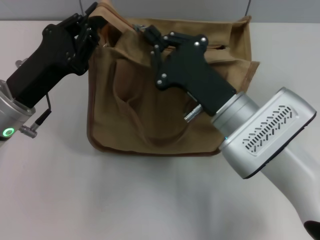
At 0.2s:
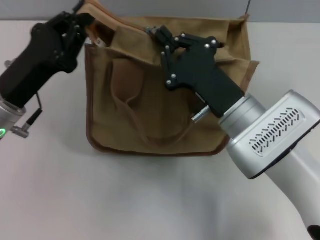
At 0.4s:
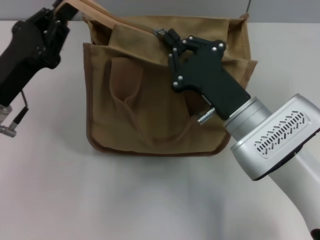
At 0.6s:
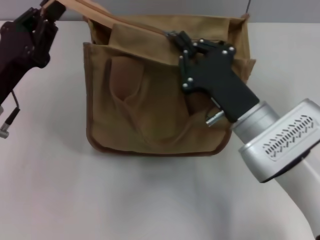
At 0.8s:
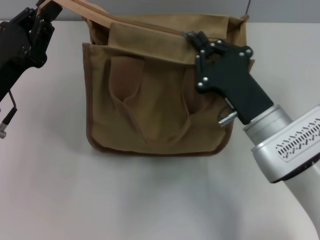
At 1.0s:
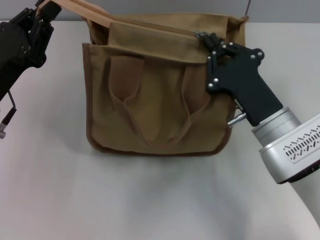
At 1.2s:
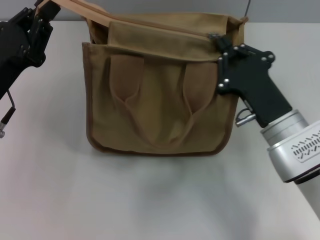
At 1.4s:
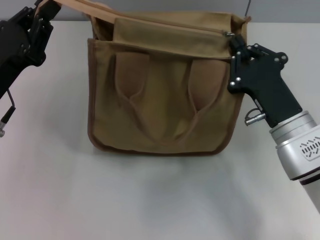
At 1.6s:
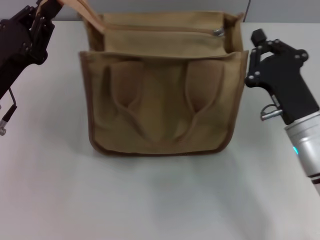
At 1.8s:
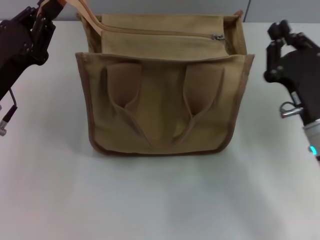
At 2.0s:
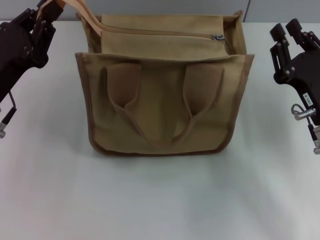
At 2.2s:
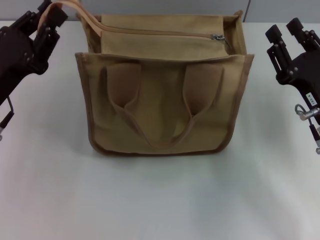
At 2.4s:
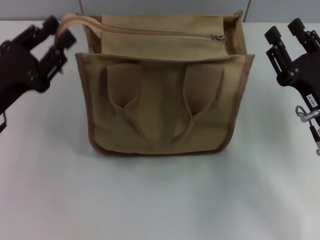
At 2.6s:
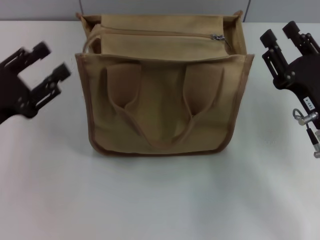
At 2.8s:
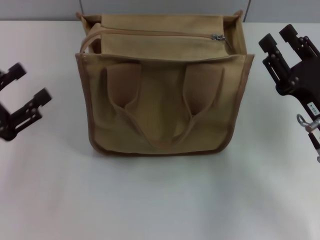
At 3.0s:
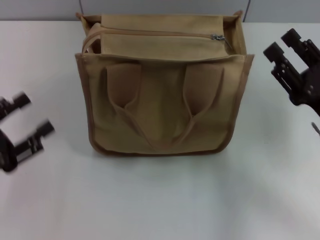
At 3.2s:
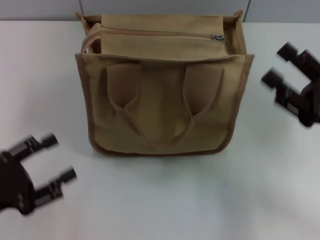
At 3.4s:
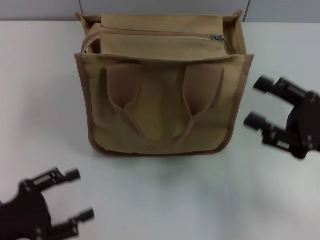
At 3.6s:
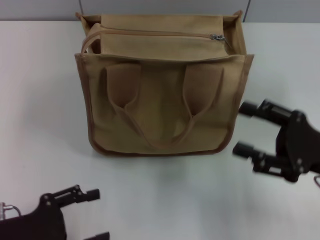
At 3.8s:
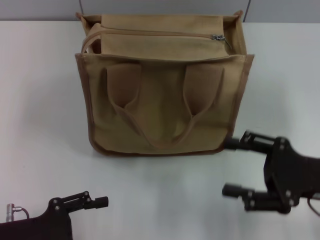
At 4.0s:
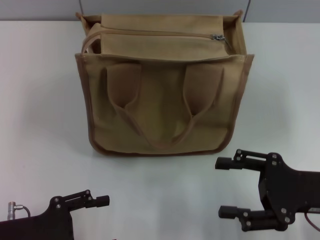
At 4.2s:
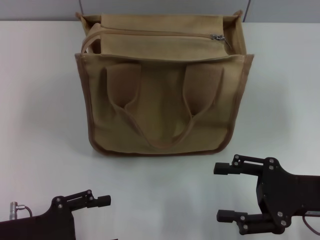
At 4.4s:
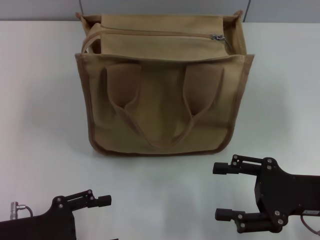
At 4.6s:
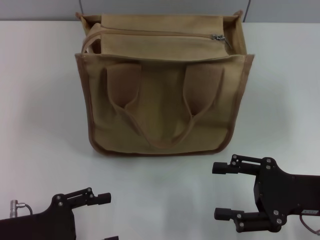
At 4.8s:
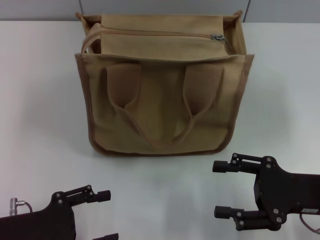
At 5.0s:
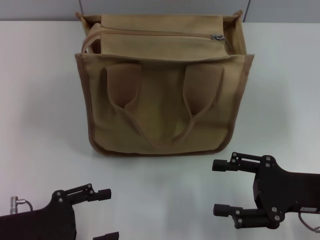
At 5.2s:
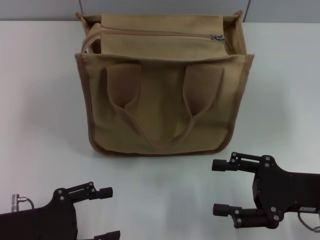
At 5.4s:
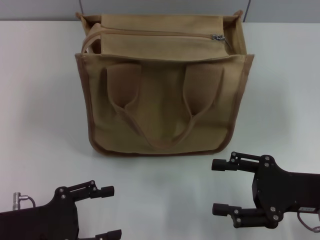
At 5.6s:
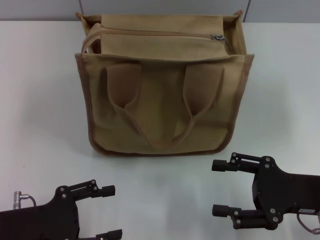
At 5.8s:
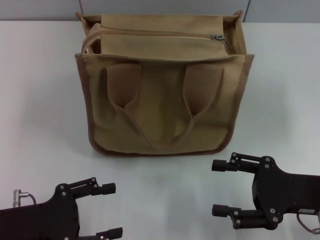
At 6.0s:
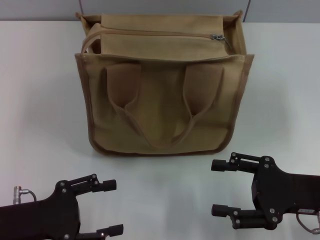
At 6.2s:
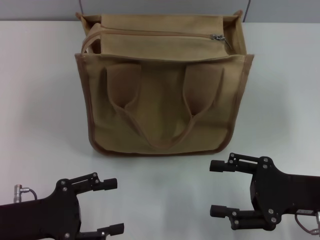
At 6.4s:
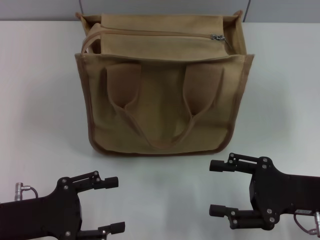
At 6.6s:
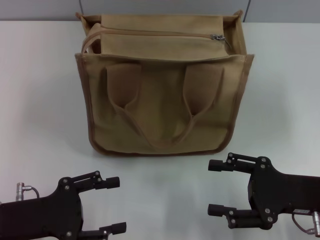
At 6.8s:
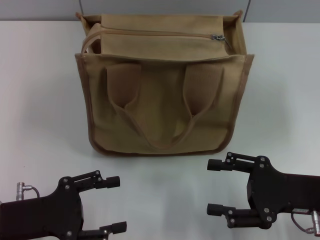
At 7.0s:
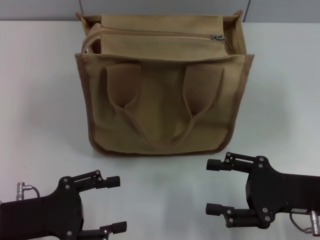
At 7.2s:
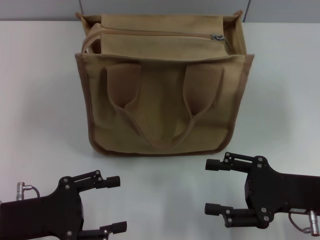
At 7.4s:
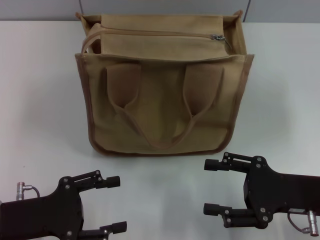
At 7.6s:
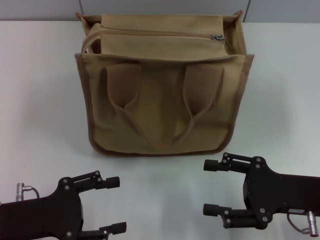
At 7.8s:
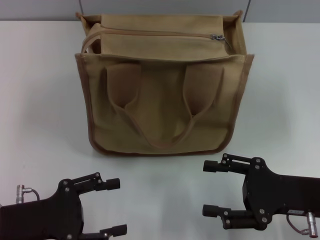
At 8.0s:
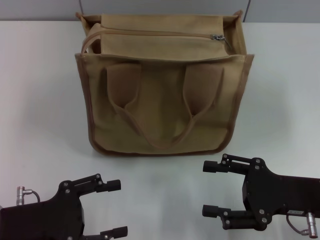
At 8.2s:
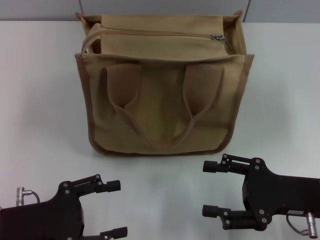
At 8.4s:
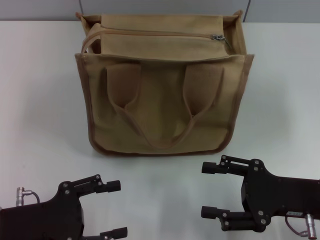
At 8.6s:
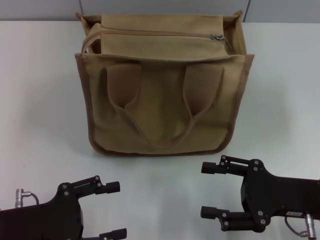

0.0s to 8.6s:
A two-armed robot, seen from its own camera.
Step, 1.6s to 2.4s: Grab the zipper with your left hand.
0.0s to 1.4s: The right gripper heads to the right, covering about 5 cm.
1.4s to 2.8s: The right gripper goes some 5 cm to the right, and opens; the left gripper is displaced backward and to the left by roughly 10 cm, and opens.
2.8s to 4.4s: The left gripper heads backward, covering roughly 5 cm.
4.4s to 5.8s: The grippers stay close to where they were, moving slightly.
5.8s to 7.2s: Neither gripper changes place.
7.2s to 8.6s: Neither gripper changes place.

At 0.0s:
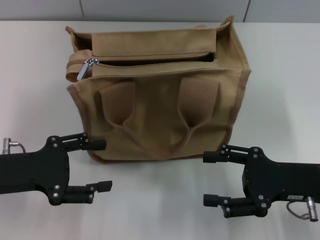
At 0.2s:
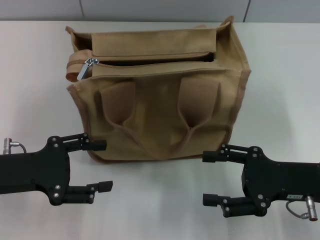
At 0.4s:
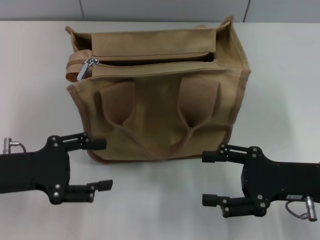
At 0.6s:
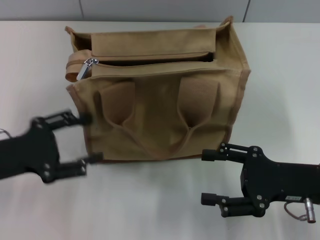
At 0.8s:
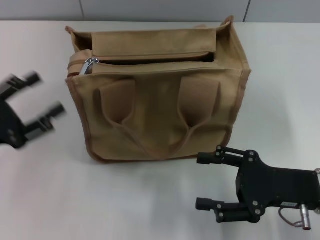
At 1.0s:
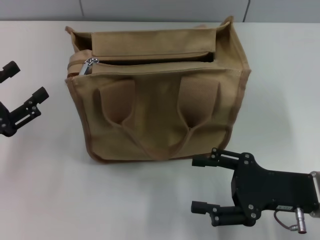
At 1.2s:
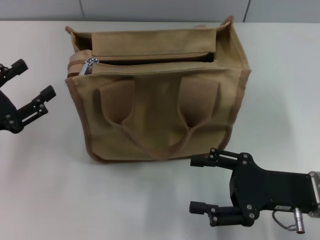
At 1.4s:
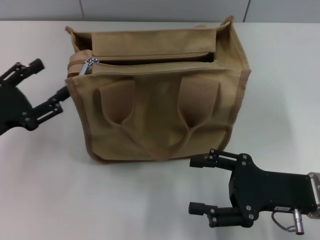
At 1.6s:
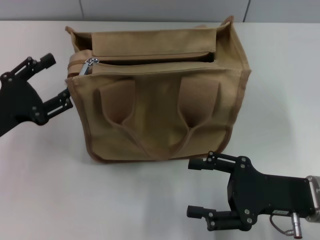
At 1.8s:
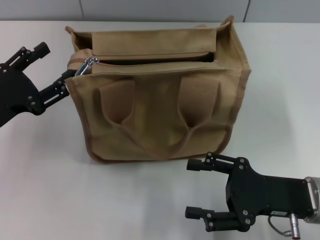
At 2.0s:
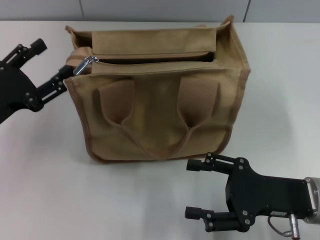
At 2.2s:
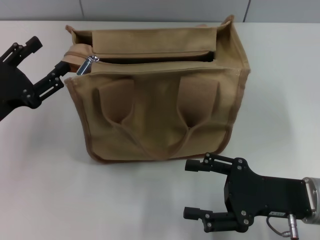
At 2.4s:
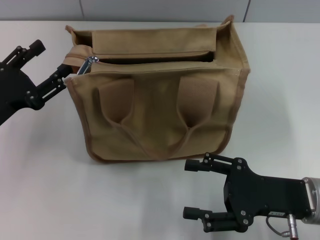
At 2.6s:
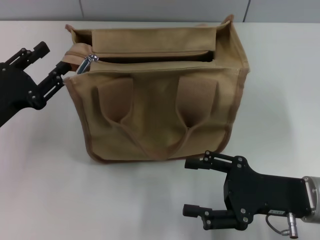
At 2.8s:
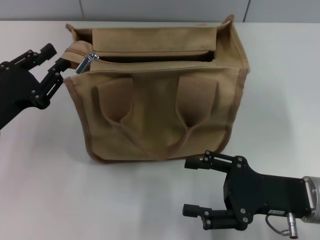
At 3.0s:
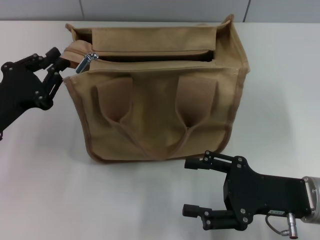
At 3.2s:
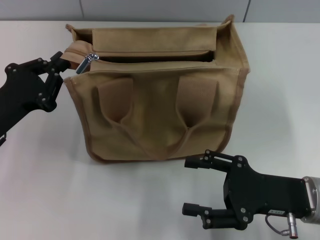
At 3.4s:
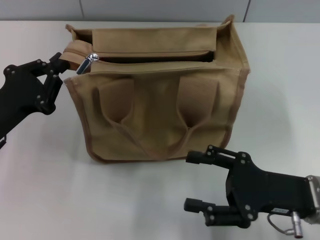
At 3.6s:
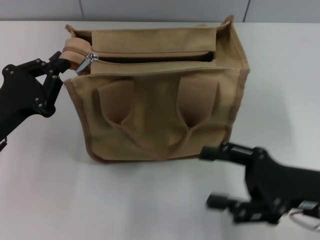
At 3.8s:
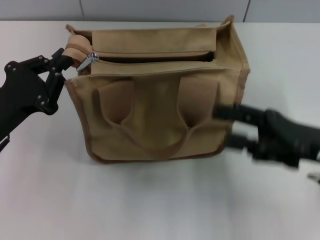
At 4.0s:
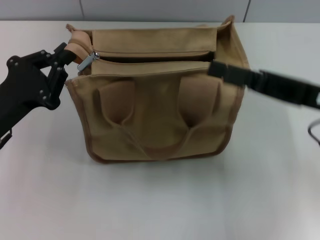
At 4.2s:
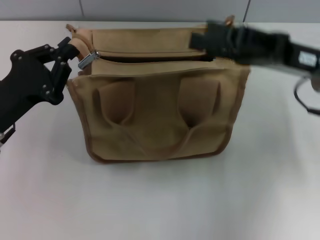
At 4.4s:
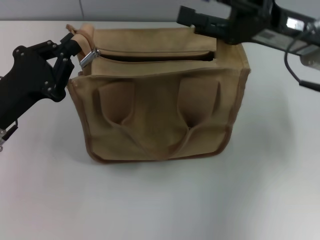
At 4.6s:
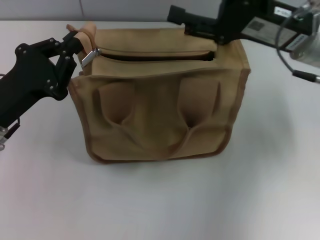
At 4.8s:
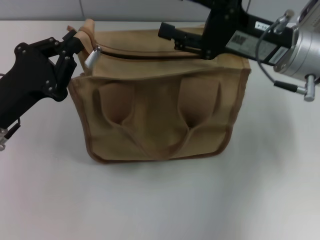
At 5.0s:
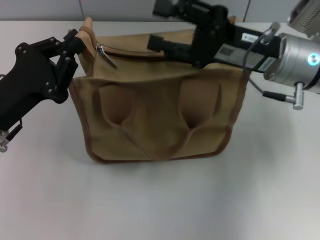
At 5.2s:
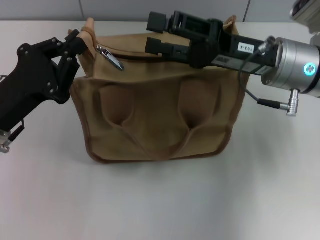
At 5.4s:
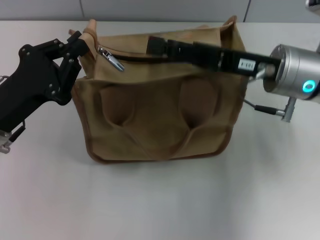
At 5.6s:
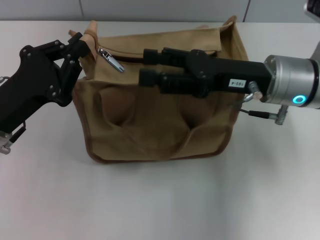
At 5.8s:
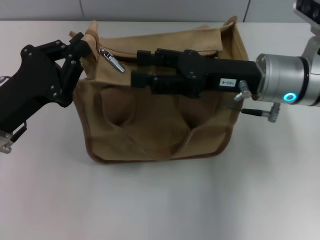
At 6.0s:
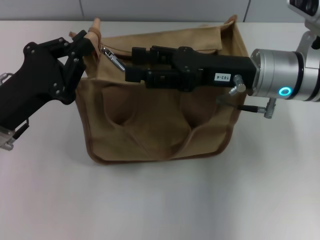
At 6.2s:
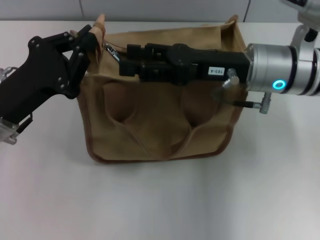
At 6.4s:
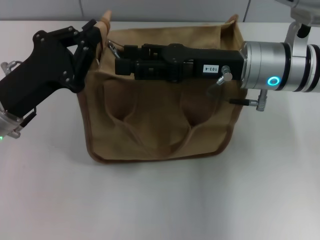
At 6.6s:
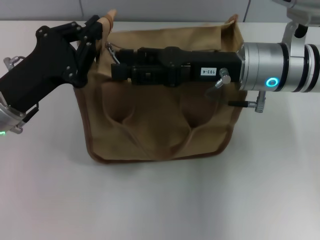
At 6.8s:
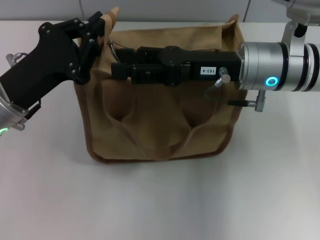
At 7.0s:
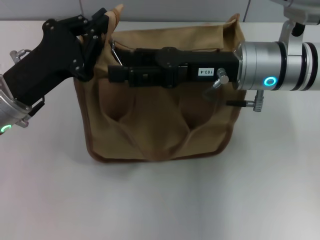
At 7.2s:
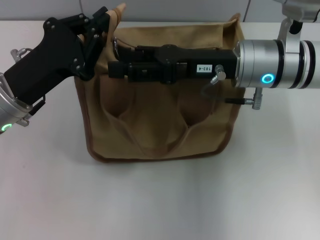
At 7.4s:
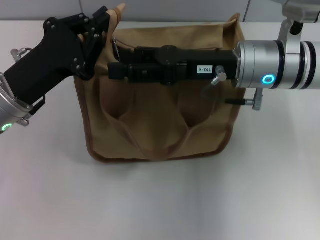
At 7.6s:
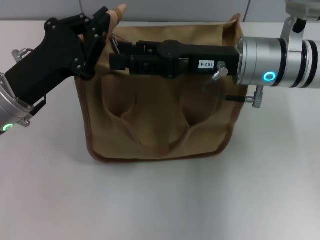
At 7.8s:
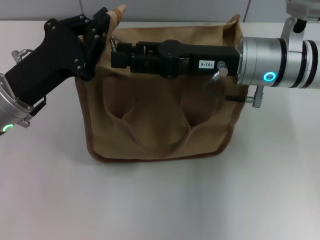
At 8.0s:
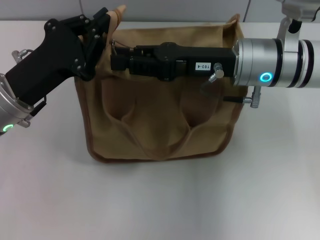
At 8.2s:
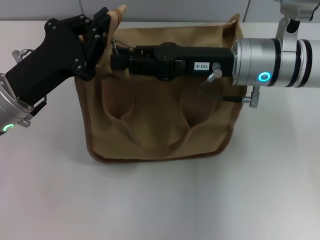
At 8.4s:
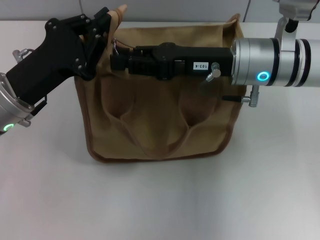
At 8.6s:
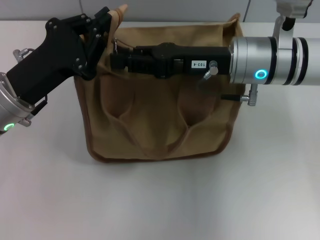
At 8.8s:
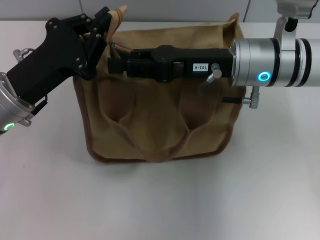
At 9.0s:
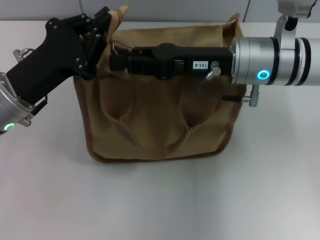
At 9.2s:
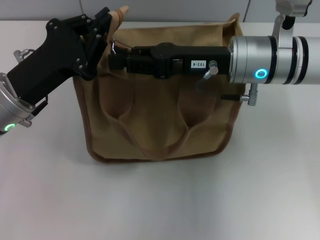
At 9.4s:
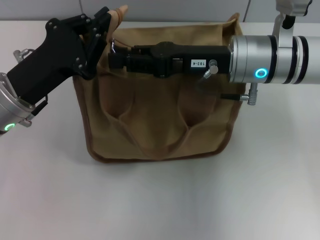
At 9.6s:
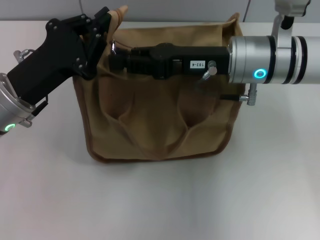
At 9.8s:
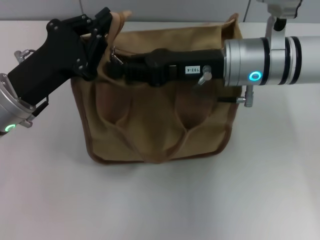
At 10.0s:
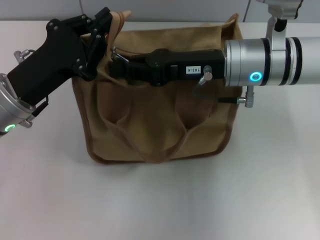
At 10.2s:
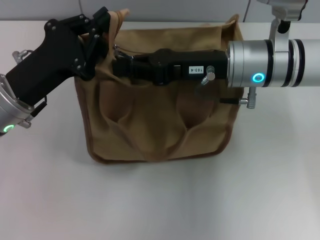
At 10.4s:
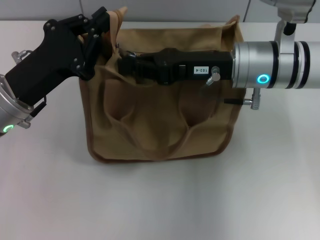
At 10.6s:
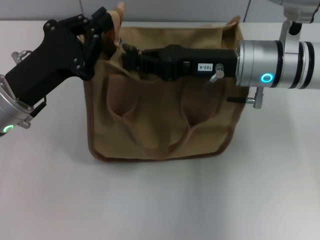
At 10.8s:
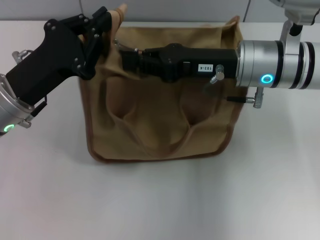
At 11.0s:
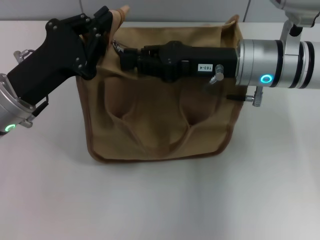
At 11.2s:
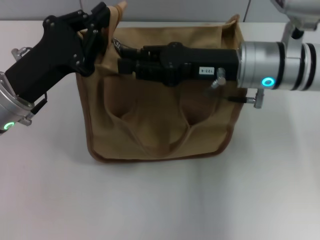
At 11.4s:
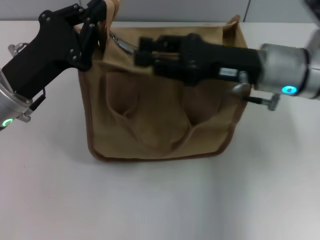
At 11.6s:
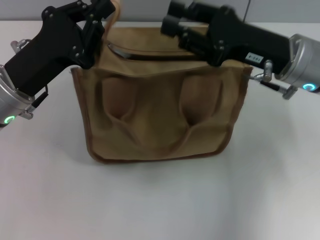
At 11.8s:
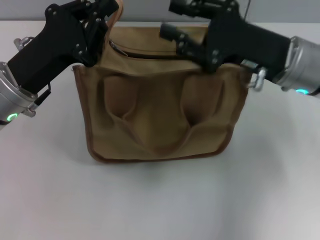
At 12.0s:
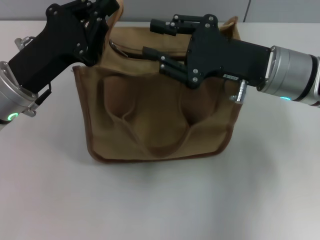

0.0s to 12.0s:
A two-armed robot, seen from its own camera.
1.6s to 3.0s: The left gripper closes its fingers.
3.0s to 4.4s: The left gripper closes up, while the right gripper moves forward and upward, about 20 cm.
4.4s to 6.0s: The right gripper is displaced to the left by approximately 5 cm.
7.6s to 9.0s: The right gripper closes its fingers.
9.0s to 10.4s: The right gripper closes its fingers.
10.4s to 12.0s: The right gripper opens its fingers.

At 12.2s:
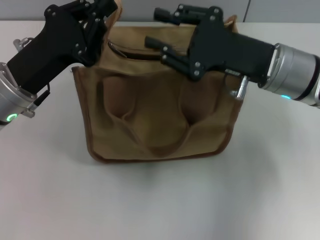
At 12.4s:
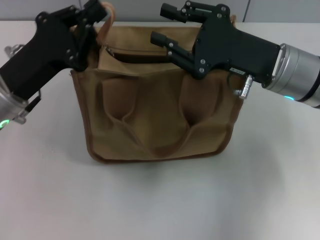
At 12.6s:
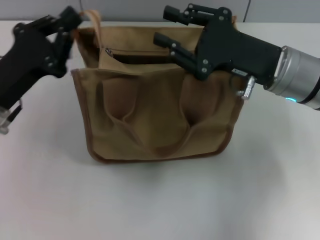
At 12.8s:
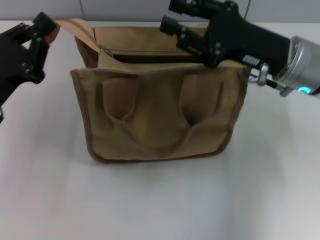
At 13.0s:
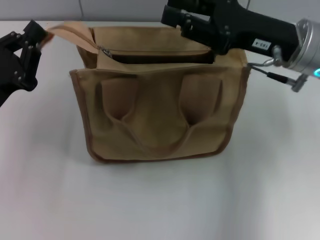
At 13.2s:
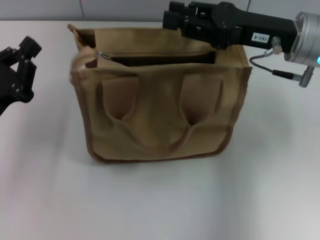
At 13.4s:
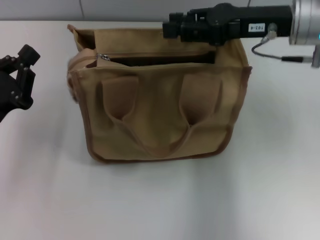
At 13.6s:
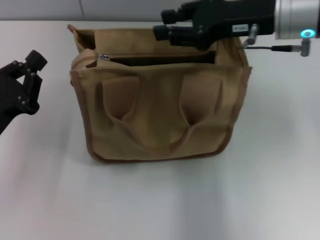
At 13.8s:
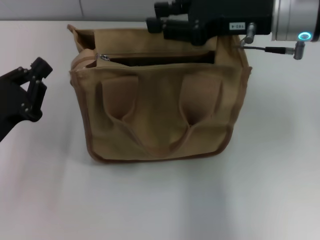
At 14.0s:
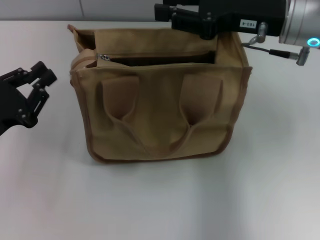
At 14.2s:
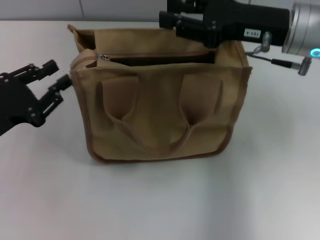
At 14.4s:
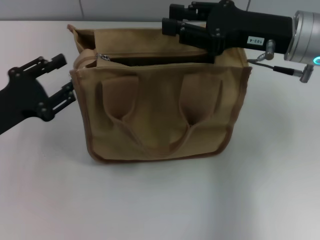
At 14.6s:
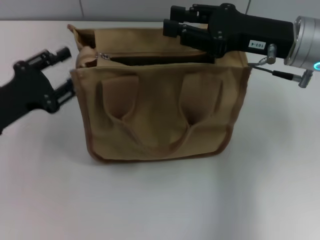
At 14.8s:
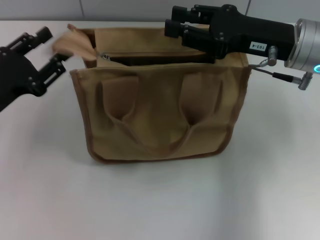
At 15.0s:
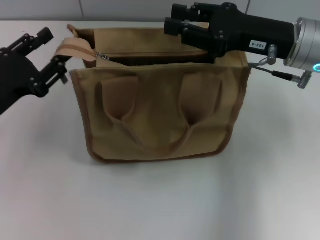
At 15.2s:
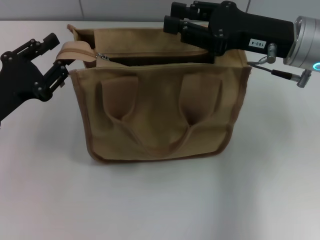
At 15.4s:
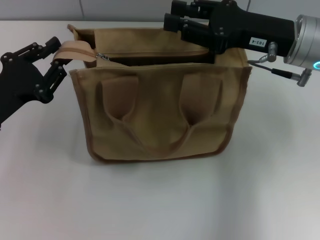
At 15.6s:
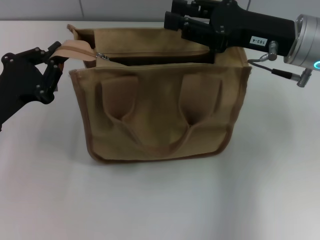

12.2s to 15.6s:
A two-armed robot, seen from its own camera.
12.2s to 13.8s: The left gripper heads backward, to the left and downward, covering roughly 10 cm; the right gripper goes roughly 5 cm upward.
13.8s to 15.6s: There are only small adjustments of the grippers.
